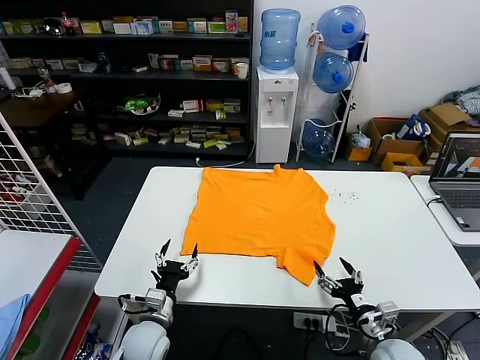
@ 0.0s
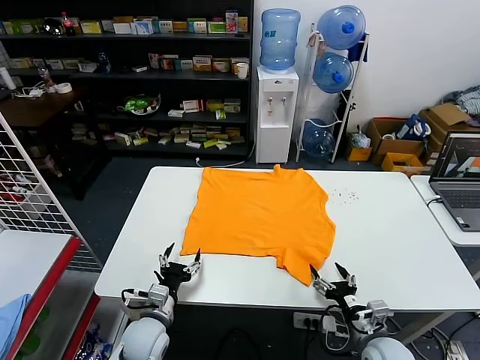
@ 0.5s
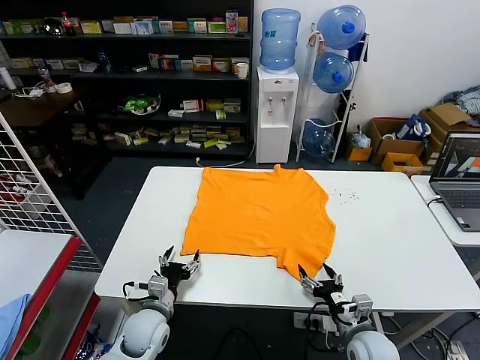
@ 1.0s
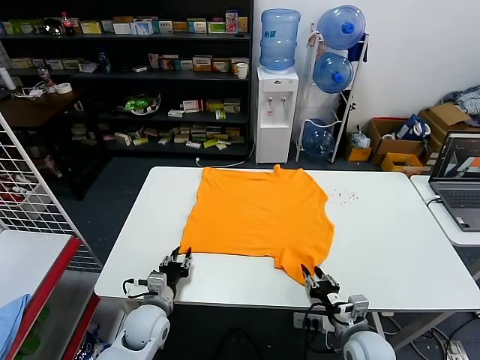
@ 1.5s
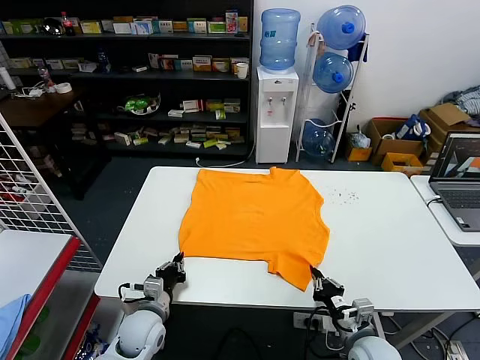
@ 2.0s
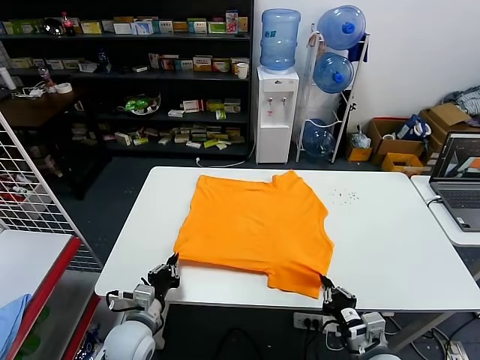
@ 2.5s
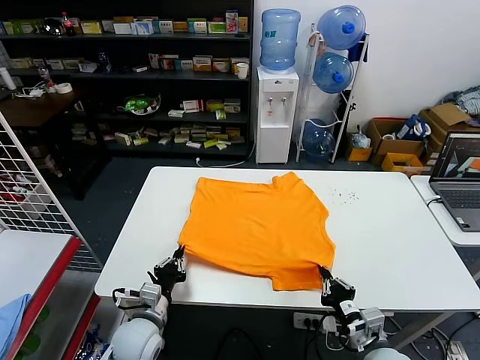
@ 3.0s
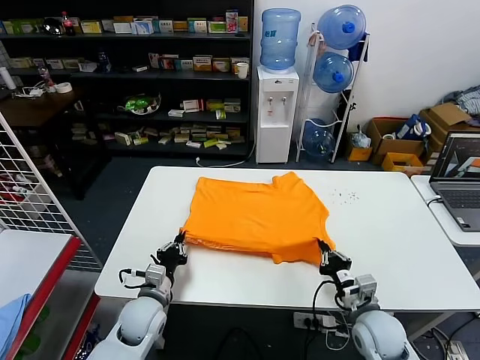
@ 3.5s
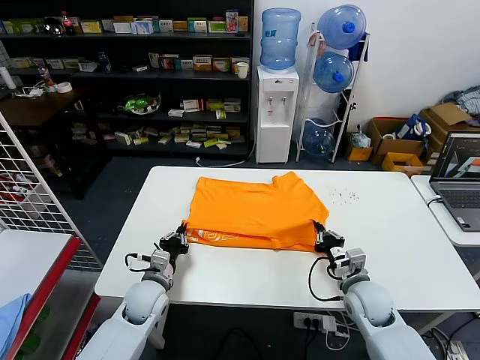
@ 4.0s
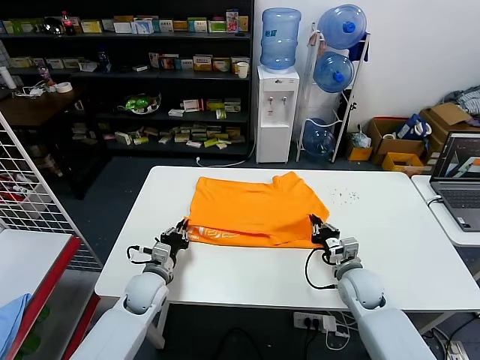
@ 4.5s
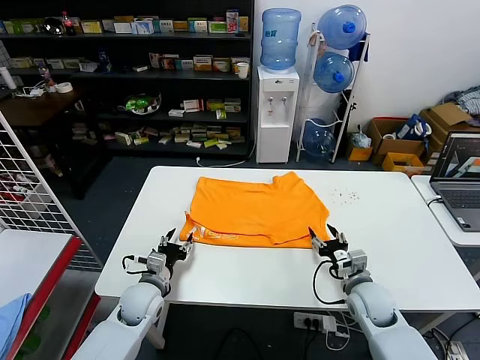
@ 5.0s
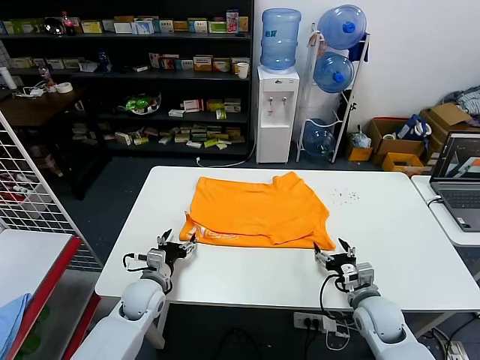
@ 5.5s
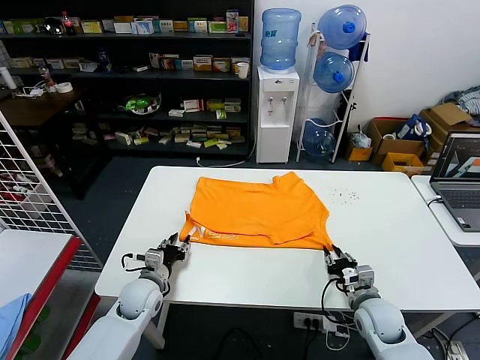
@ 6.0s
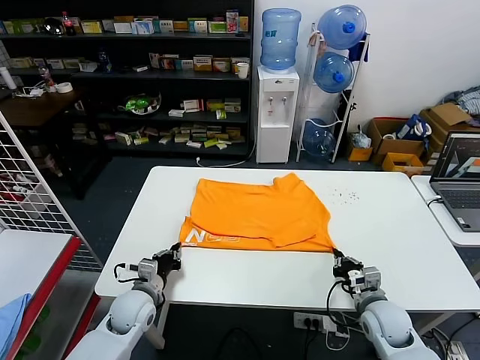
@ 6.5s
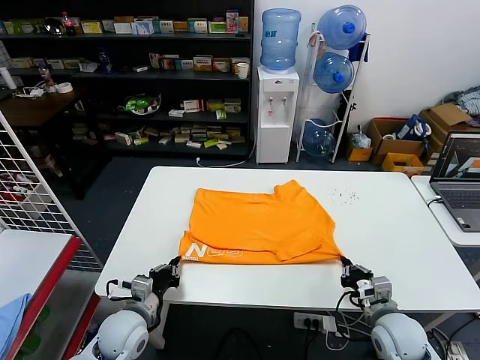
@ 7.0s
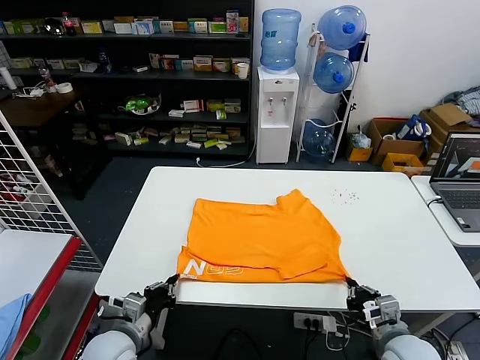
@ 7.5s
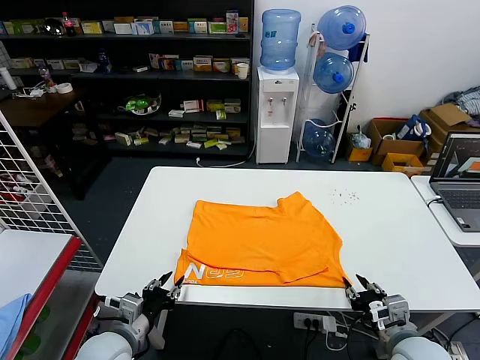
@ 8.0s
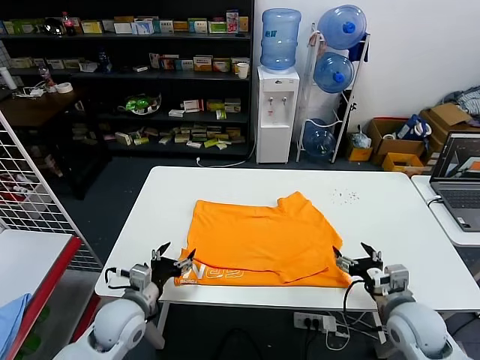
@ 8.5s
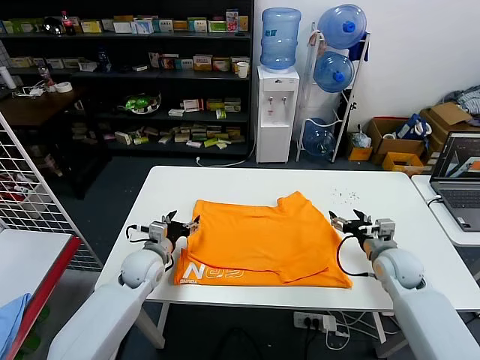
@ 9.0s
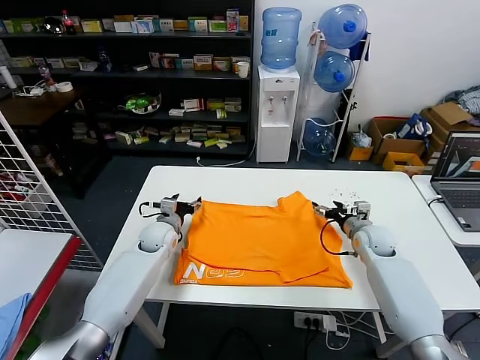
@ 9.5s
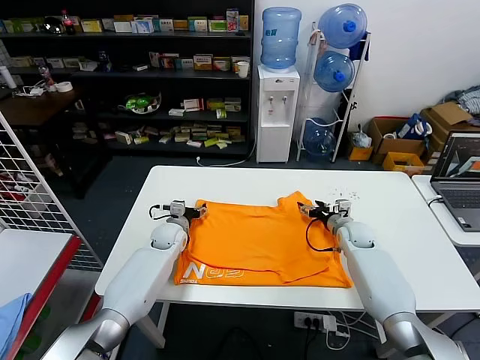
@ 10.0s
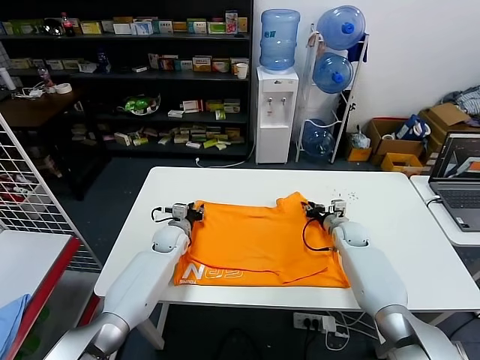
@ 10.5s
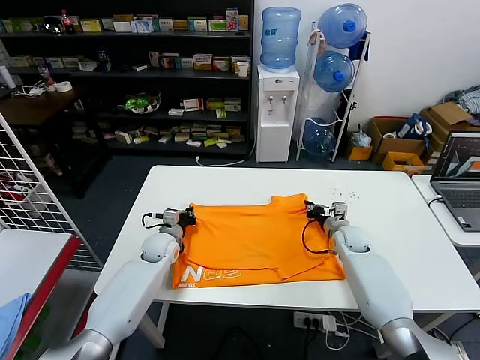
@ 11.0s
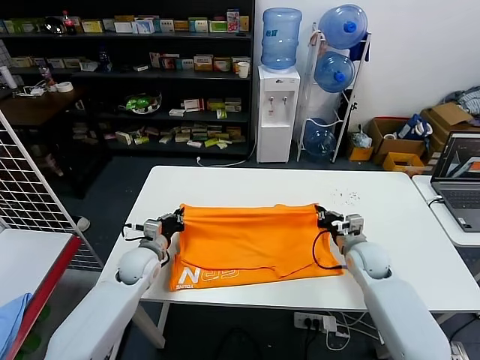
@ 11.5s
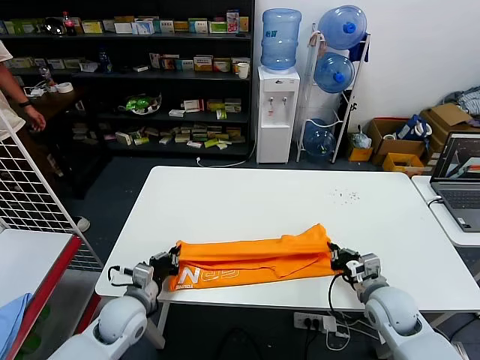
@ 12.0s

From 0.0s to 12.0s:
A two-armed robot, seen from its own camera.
Task of the whole recording: fold and organize the clothes.
Step, from 0.0s to 1.5s: use both grippers simultaneously to clamp the lower edge of the clothing fabric.
Step, from 2.5s to 4.5s: use both grippers to drag the lower edge of the fabric forward and fold it over the upper edge.
Step, from 5.0s to 8.0s: Drag the clothes downward with both gripper.
Step, from 8.5s to 10.5s: use both grippers simultaneously to clamp the upper edge of the clothing fabric.
From 2.0s to 4.0s: The left gripper ends up roughly 5 cm from where it was. Meanwhile the right gripper heads forward, covering roughly 10 cm.
From 4.0s to 6.0s: The left gripper opens its fingers, while the right gripper opens.
From 6.0s to 8.0s: Both grippers travel together backward and upward, approximately 15 cm. The left gripper closes and opens again. Meanwhile the right gripper closes and opens again.
From 8.0s to 10.0s: Both grippers move forward, roughly 30 cm. The right gripper opens; the left gripper opens its fingers.
From 10.0s to 12.0s: The grippers both shift backward by some 20 cm. The right gripper closes up. Meanwhile the left gripper closes up.

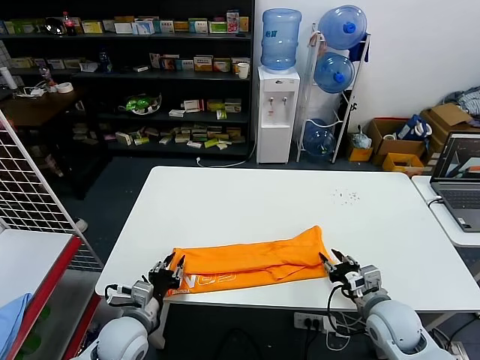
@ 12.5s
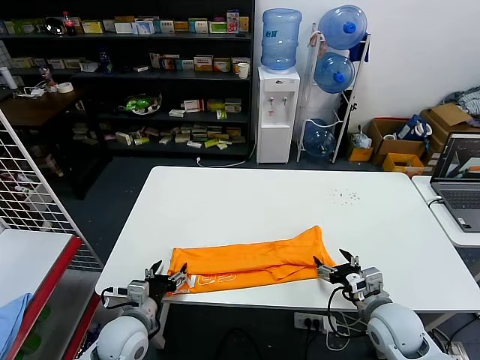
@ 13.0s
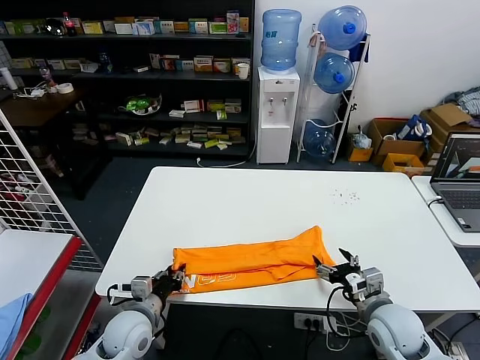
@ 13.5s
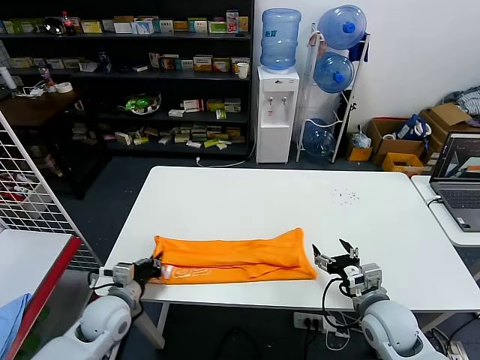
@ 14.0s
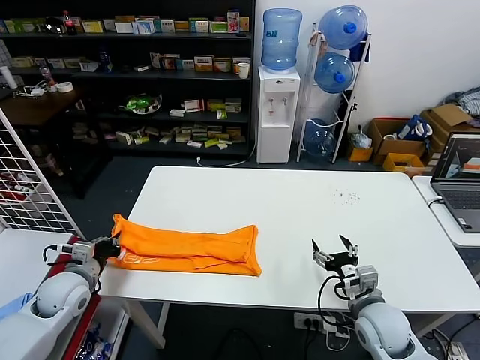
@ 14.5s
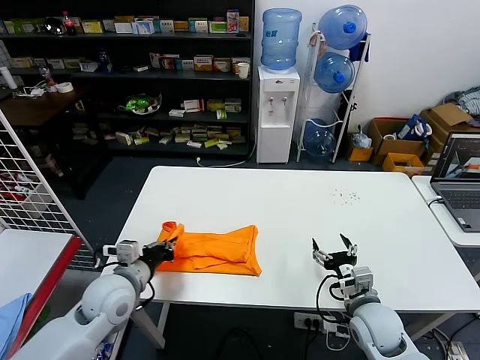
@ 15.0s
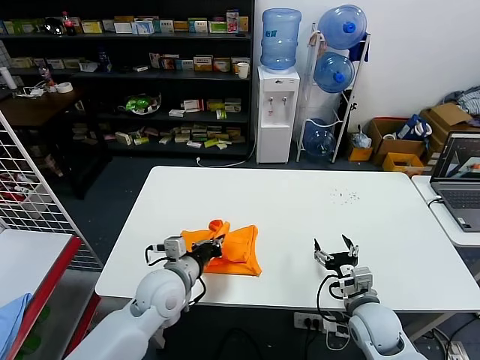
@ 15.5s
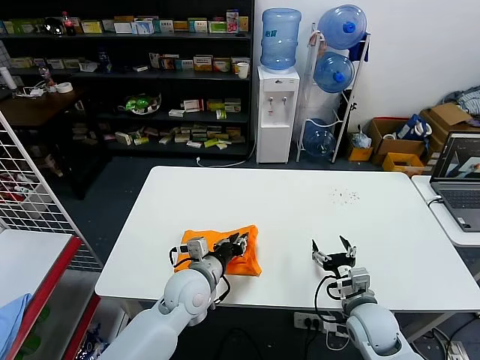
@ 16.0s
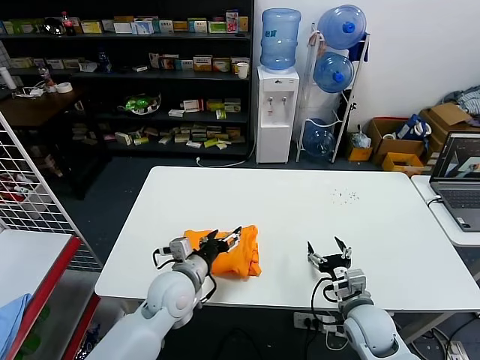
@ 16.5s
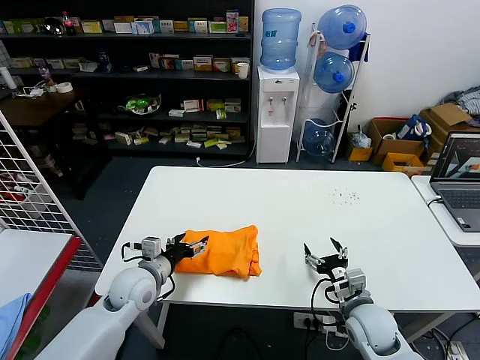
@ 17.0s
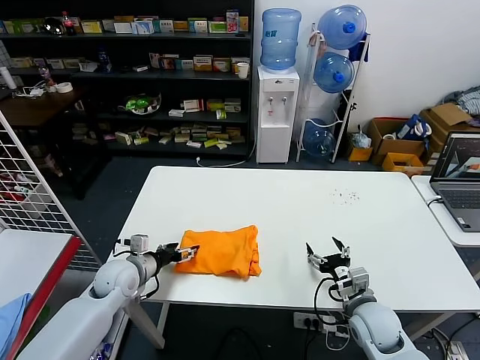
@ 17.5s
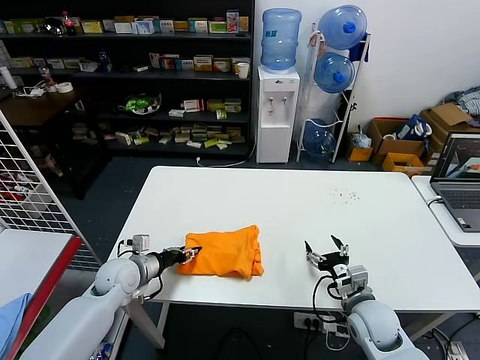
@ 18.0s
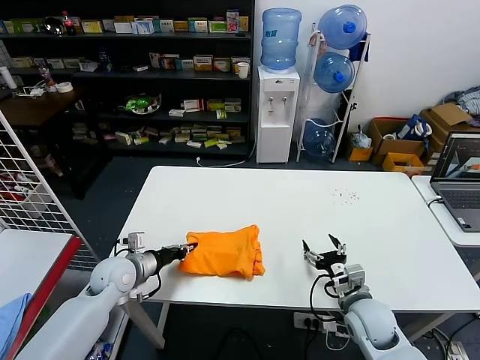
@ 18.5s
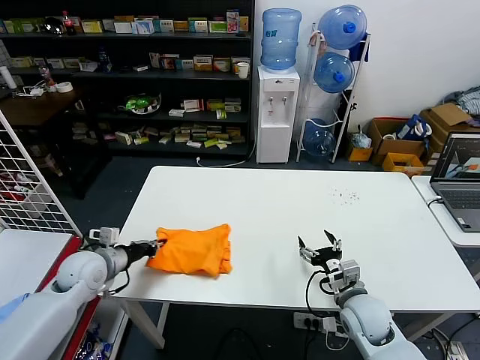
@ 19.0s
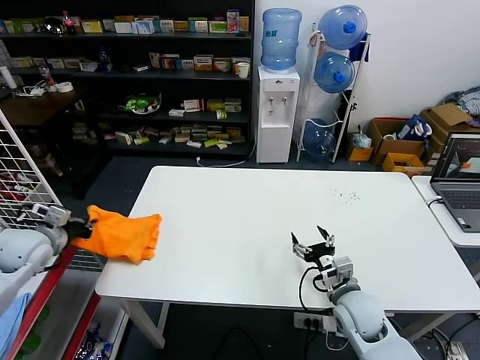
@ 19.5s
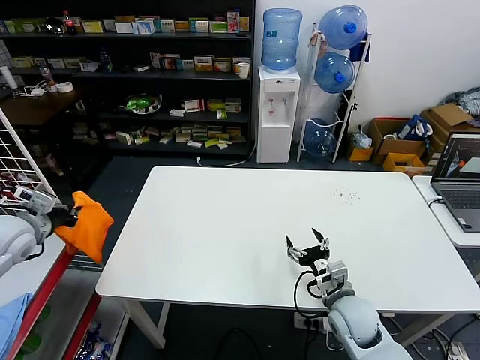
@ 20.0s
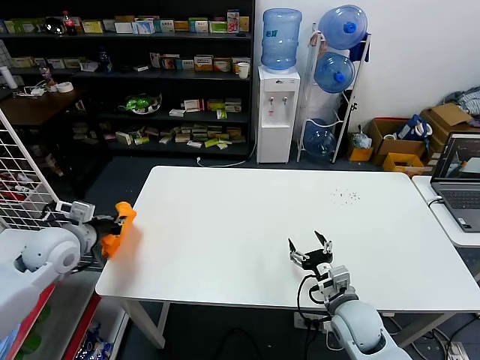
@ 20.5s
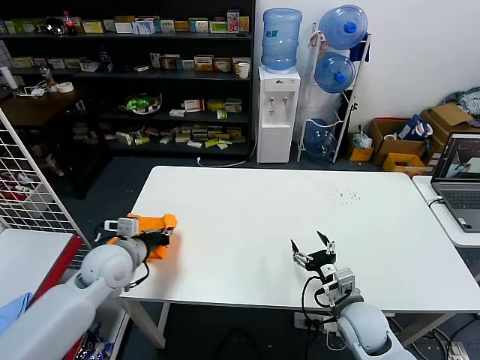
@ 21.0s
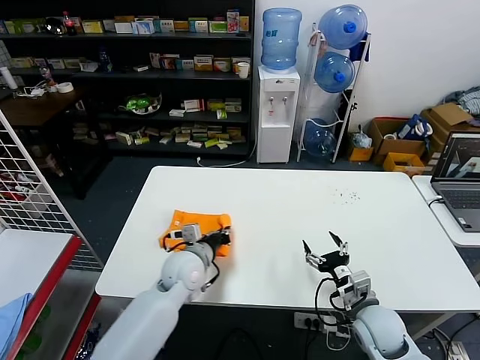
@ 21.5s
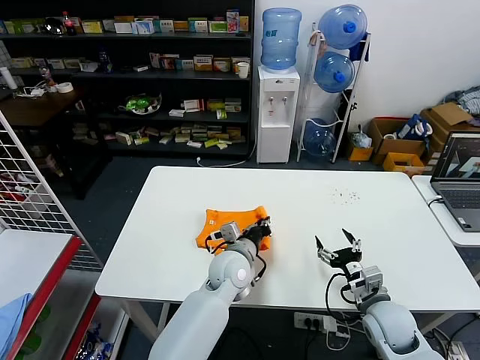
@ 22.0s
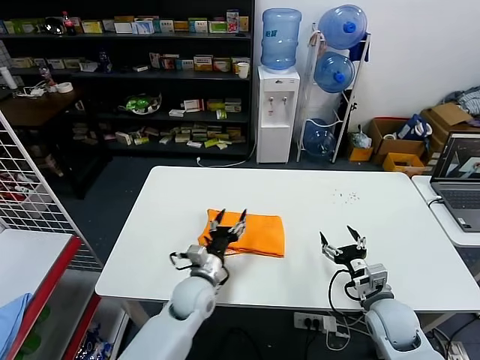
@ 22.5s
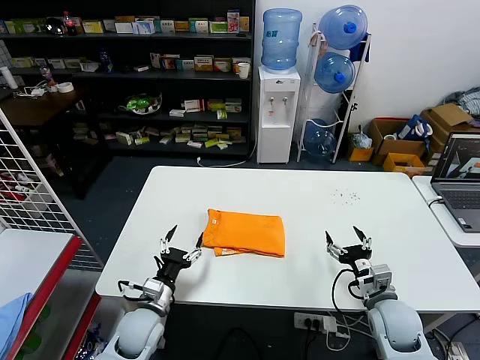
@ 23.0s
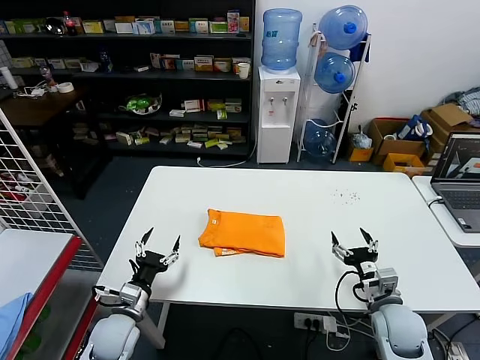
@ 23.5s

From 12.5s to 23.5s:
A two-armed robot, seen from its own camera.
Task of the whole recording: fold and organize the clothes.
Step, from 12.5s to 13.5s: use the left gripper to clamp the left edge of the fabric.
Step, from 14.0s to 15.5s: use the left gripper to drag the left edge of the fabric to the left and folds it over the right edge.
Step, from 16.0s to 22.0s: Flip the folded clothes over with left gripper.
From 12.5s to 14.5s: The right gripper opens; the left gripper is displaced to the left and forward by about 15 cm, and opens and closes again.
From 14.5s to 16.0s: The left gripper shifts some 25 cm to the right.
From 16.0s to 18.0s: The left gripper travels to the left by approximately 20 cm, and opens and closes again.
From 18.0s to 20.0s: The left gripper travels upward and to the left by some 25 cm, and closes up.
From 20.0s to 21.5s: The right gripper shifts by about 5 cm, while the left gripper goes roughly 35 cm to the right and downward.
From 21.5s to 23.5s: The left gripper travels to the left, backward and downward by about 20 cm, and opens up.

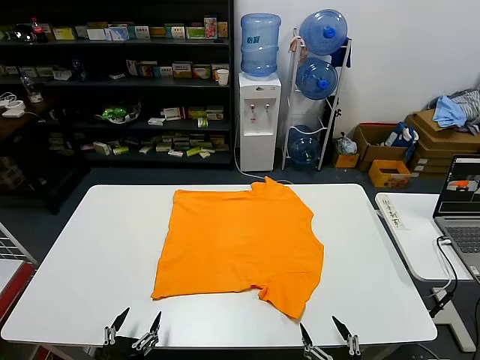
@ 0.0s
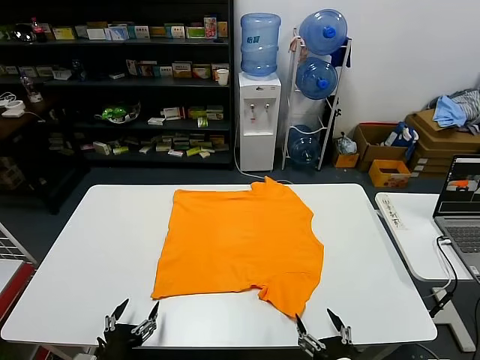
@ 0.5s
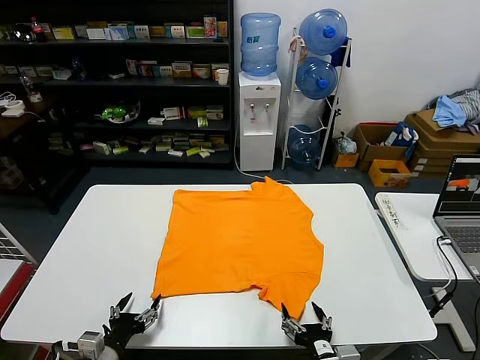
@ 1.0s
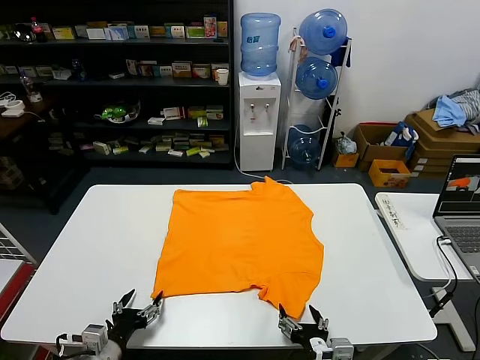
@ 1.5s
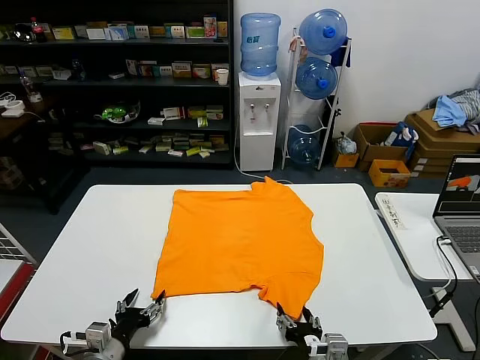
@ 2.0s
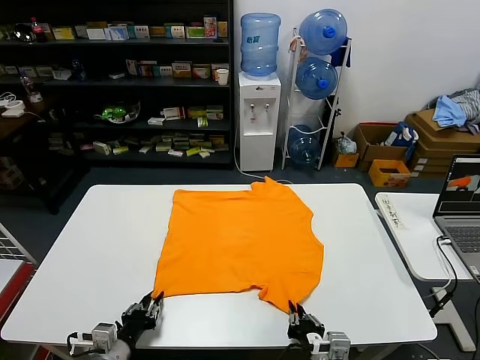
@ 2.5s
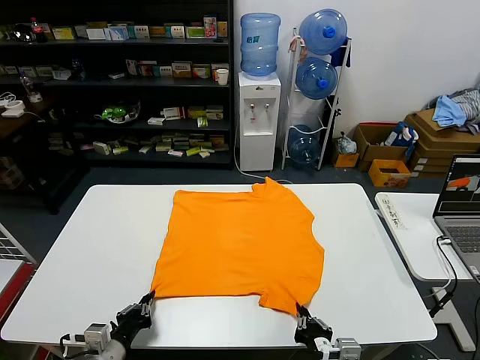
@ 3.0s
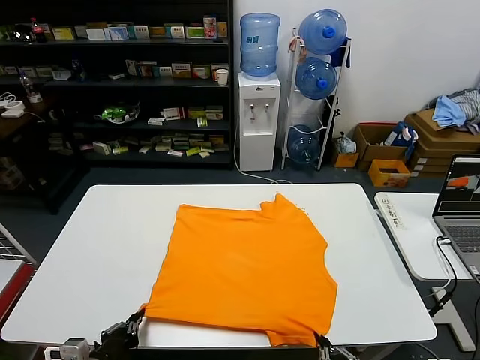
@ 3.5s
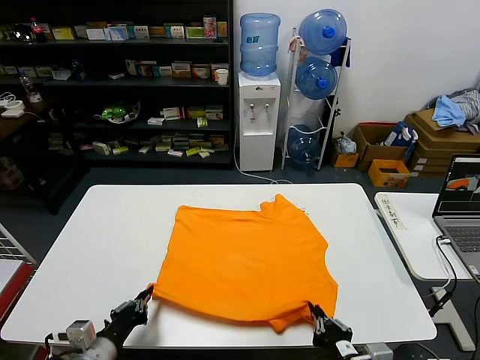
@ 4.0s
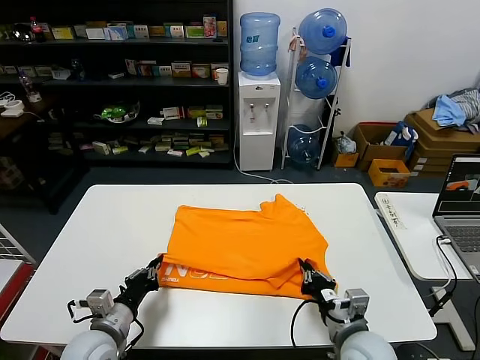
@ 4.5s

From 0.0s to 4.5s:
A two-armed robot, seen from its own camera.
Task of the whole recording: fold and organize the clothes.
Step, from 0.0s to 3.0s: use both grippers simultaneously to clamp the lower edge of the clothing fabric.
From 2.0s to 4.5s: The left gripper shifts approximately 5 cm forward, and closes its fingers. Meanwhile the right gripper goes some 10 cm forward and to the right, and closes.
